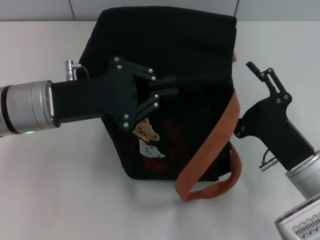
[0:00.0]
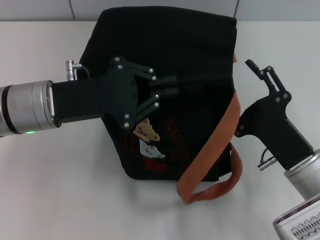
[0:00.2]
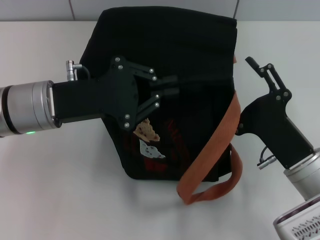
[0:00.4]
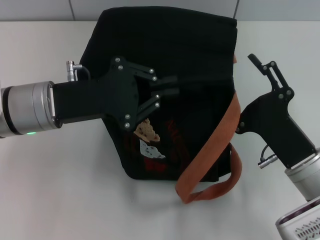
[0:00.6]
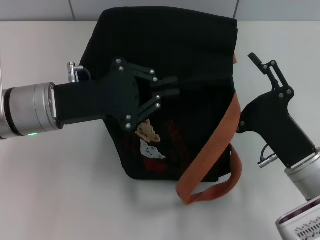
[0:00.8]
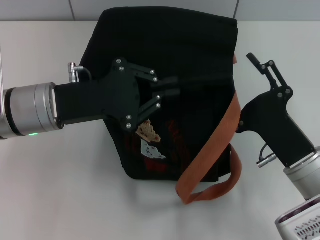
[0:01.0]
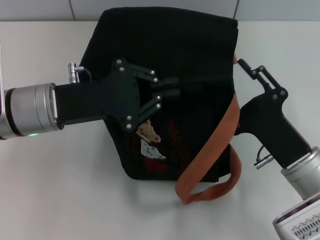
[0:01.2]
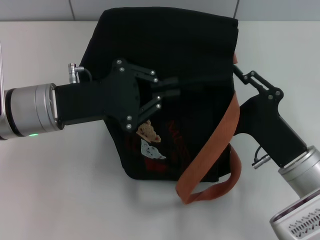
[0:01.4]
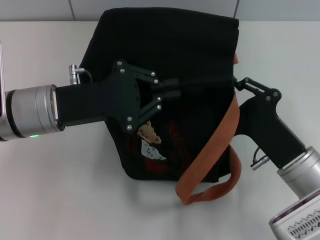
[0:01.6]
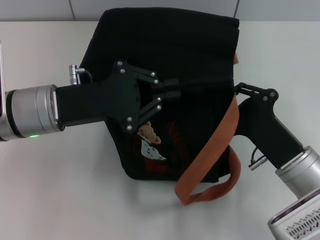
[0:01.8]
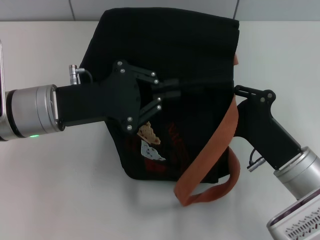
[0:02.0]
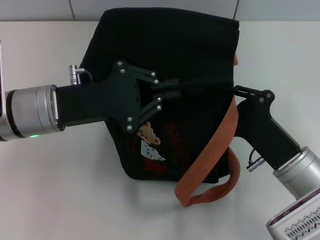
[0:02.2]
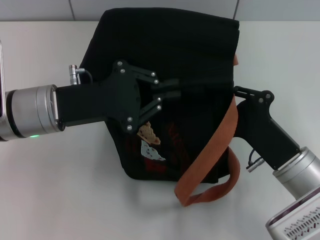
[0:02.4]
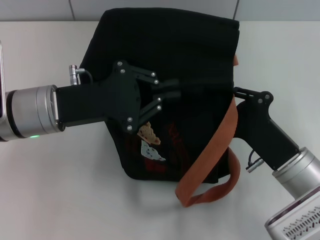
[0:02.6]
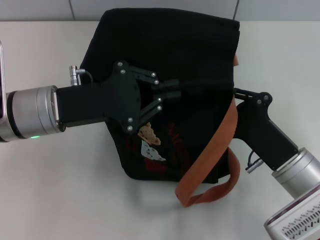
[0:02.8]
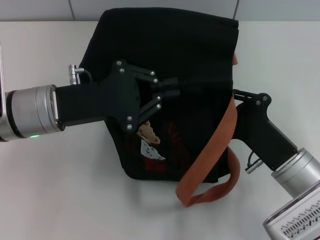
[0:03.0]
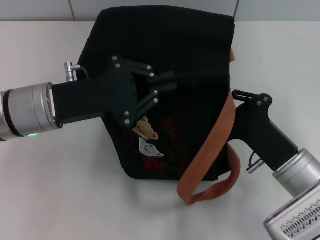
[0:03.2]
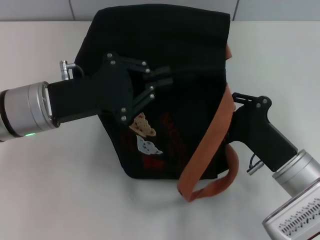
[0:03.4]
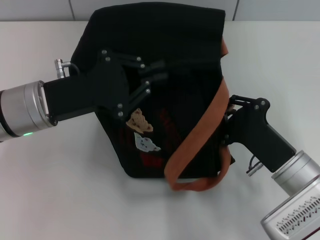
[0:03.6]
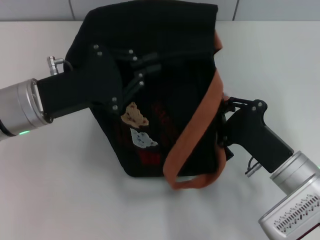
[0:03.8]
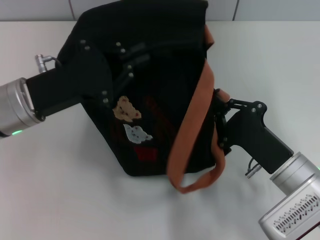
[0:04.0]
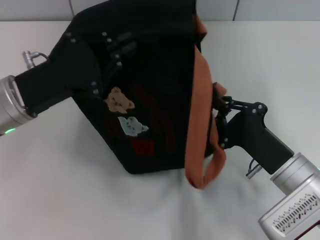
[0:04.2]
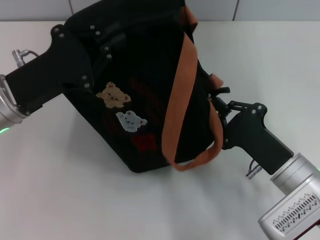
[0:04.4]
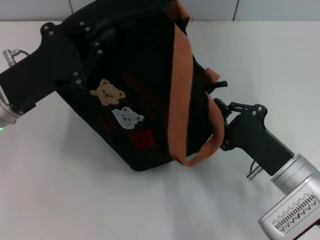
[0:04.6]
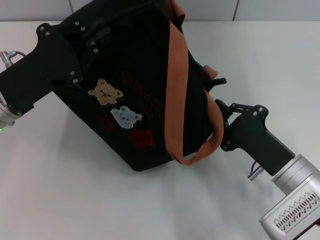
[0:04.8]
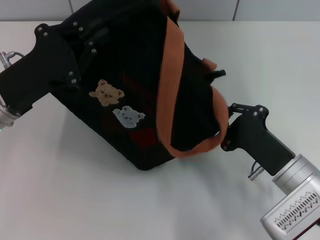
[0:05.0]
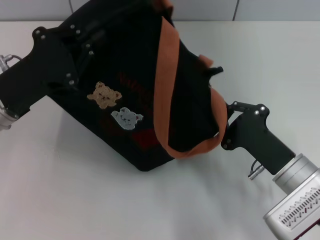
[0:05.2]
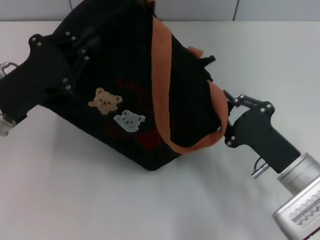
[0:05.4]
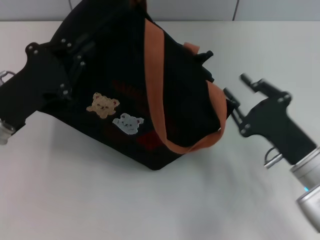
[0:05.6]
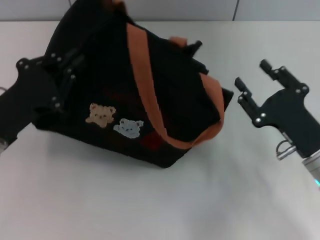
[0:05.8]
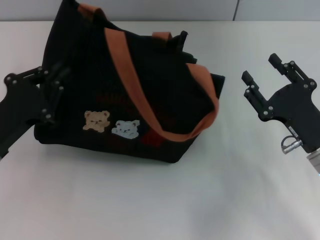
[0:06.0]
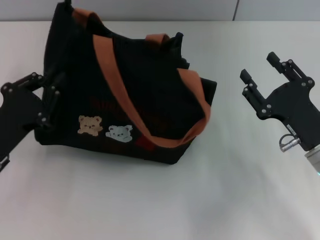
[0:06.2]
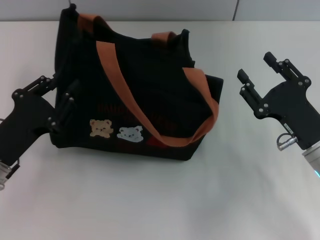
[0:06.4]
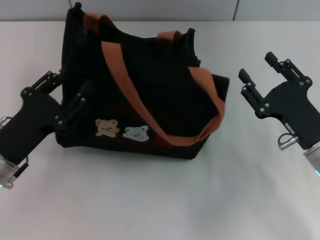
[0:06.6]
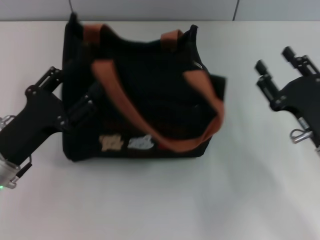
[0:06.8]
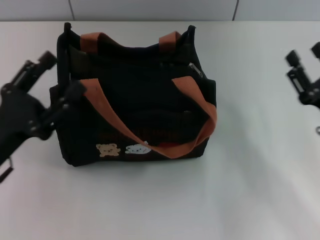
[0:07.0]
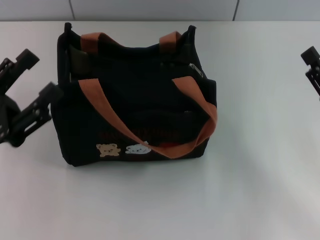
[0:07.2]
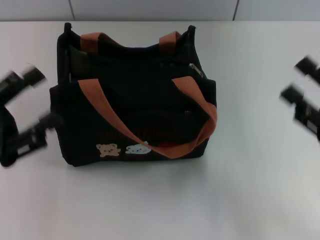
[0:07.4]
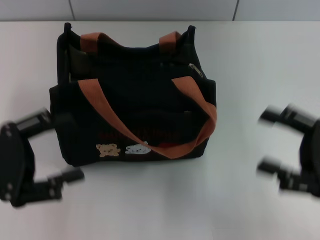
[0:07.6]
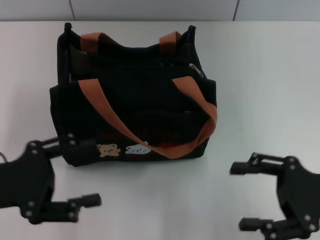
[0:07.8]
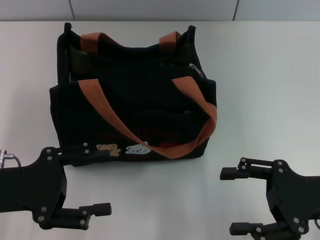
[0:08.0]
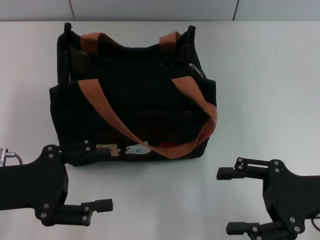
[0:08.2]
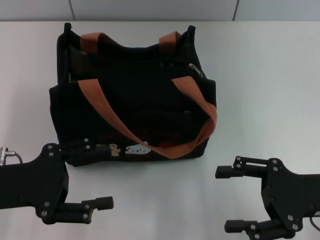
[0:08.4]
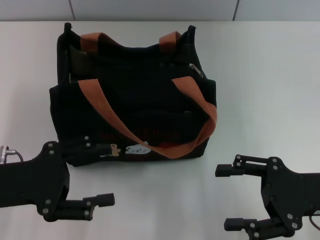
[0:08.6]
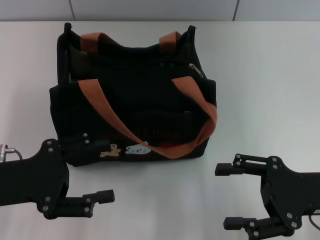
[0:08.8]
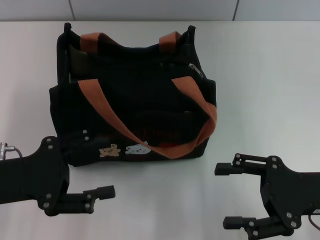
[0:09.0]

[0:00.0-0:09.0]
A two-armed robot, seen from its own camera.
Step, 0:00.0 to 0:05.6: Pull open the zipper with your right hand.
Step, 0:06.0 to 0:07.0: Grab the bag with your left hand.
0:00.0 to 0:01.6: The right gripper closes up.
0:01.6 to 0:03.0: The right gripper closes up.
0:04.4 to 0:06.0: The left gripper moves backward and downward, roughly 10 cm. Meanwhile the right gripper opens up.
0:06.0 to 0:07.6: The left gripper shifts by roughly 5 cm, and opens its fingers. The right gripper heads to the right and upward, covering approximately 10 cm.
